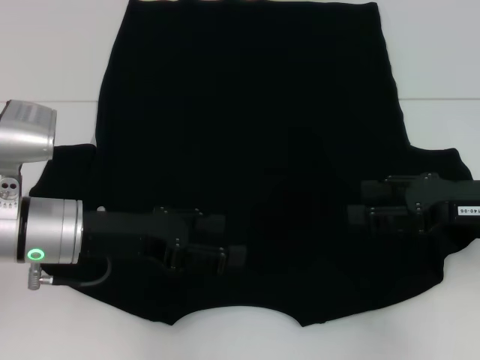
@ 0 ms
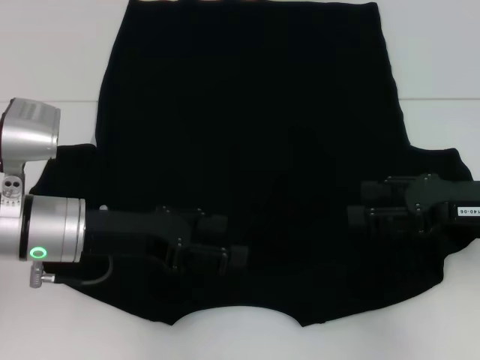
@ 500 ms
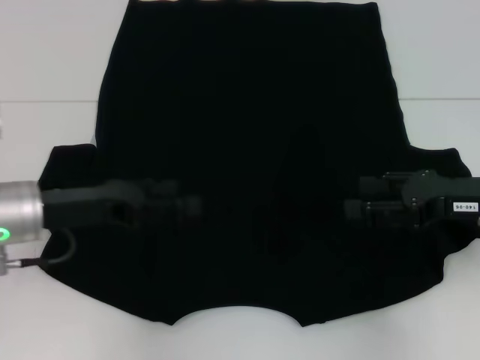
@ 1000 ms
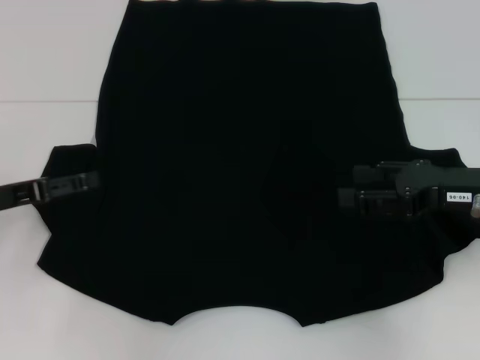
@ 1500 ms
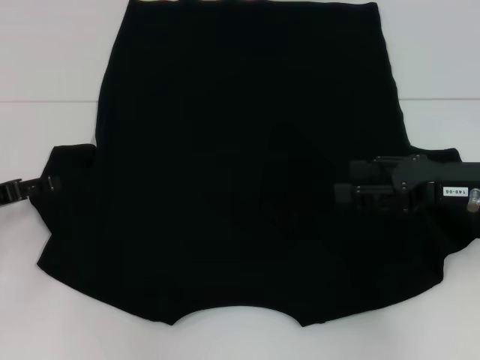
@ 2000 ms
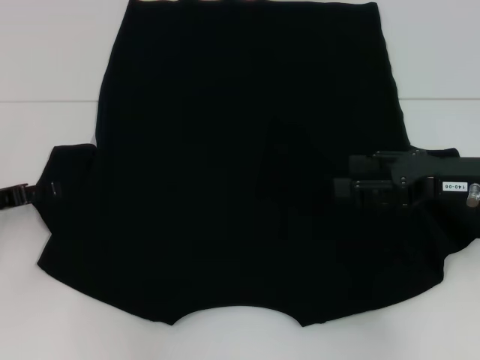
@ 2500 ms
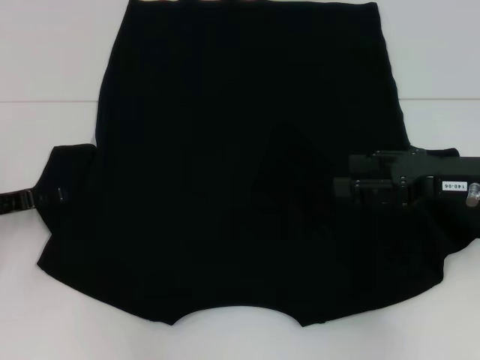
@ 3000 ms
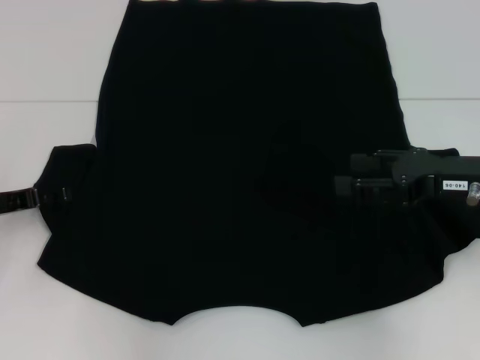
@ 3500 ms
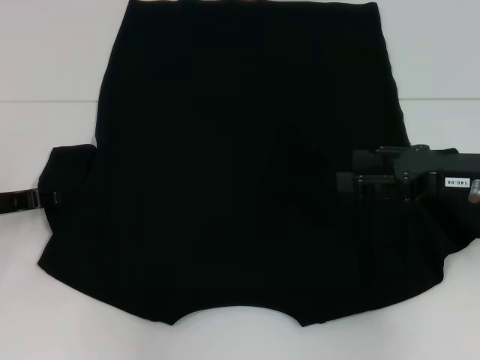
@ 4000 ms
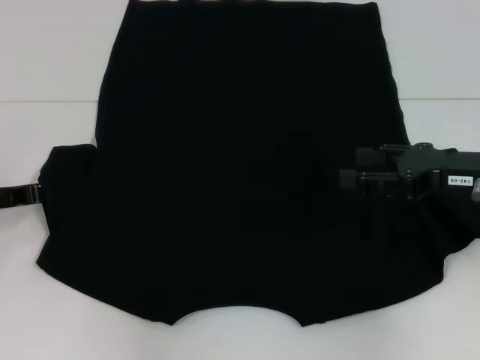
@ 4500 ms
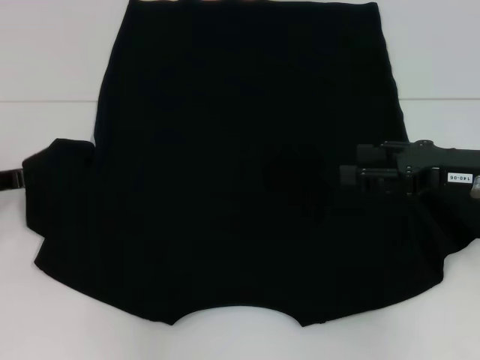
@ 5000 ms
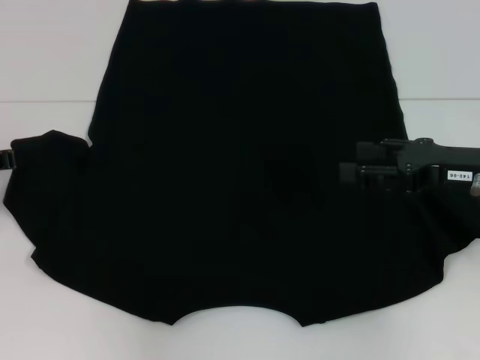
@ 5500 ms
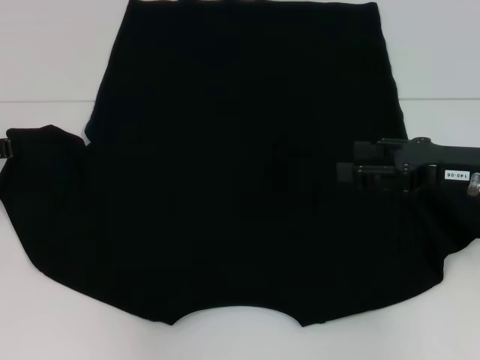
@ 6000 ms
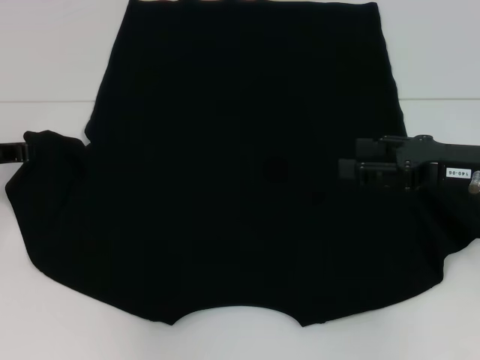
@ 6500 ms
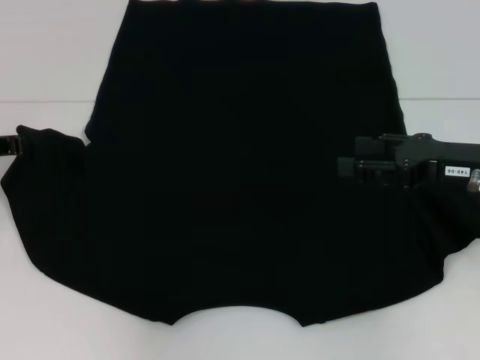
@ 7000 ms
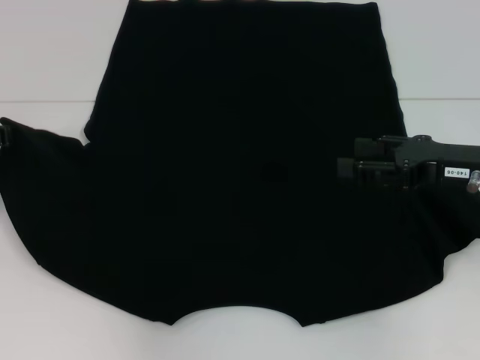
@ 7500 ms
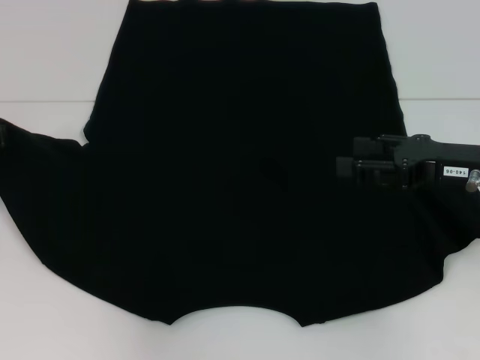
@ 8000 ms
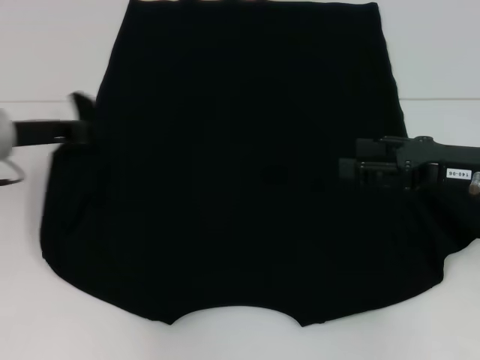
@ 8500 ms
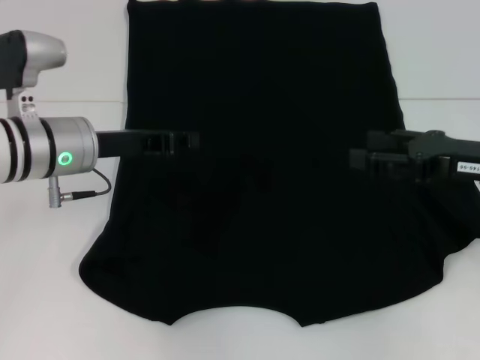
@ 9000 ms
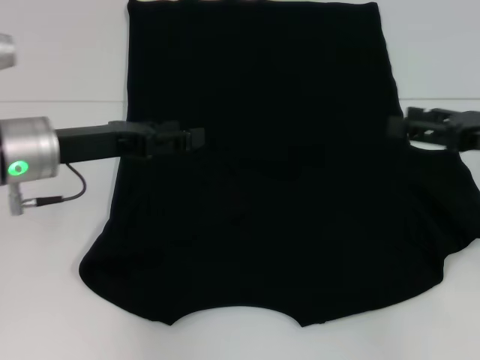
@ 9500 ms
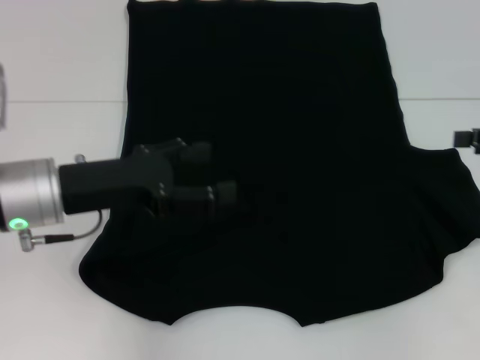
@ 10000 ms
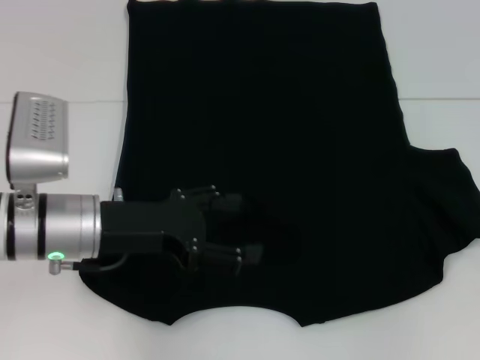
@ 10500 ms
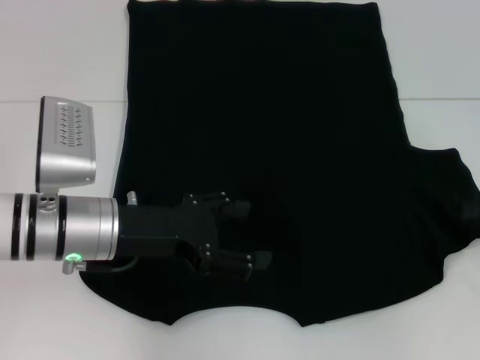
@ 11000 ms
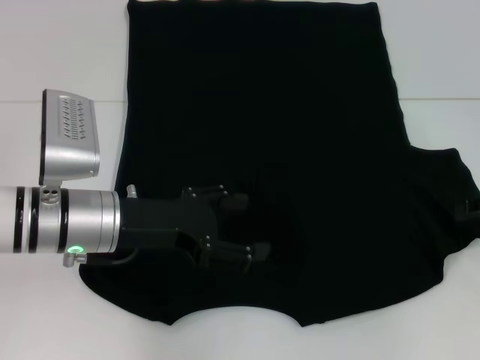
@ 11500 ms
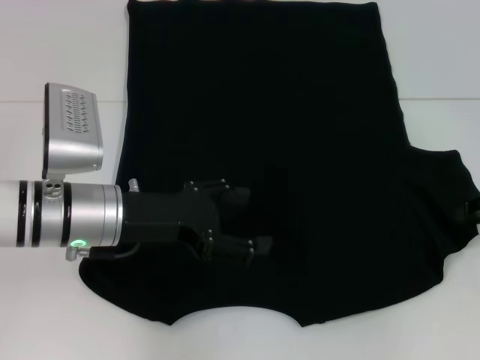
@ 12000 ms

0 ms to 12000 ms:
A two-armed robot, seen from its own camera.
Step, 0 ms to 8500 ms: Fold the bottom left sleeve with your left hand.
0 ms to 2000 ms: The left gripper moves to the left, some 15 cm.
2000 ms to 4000 ms: The grippers make only small movements.
4000 ms to 6000 ms: The left gripper ends up some 5 cm from where it was, and closes up.
6000 ms to 8000 ms: Both grippers stay about where they are.
8000 ms to 10000 ms: The left gripper goes some 15 cm to the right and backward, and opens its fingers, while the right gripper is displaced to the right by approximately 10 cm.
10000 ms to 12000 ms: The right gripper goes some 5 cm downward.

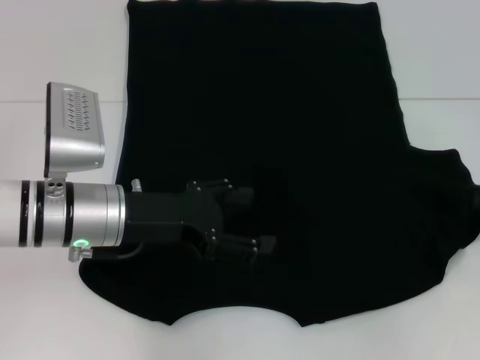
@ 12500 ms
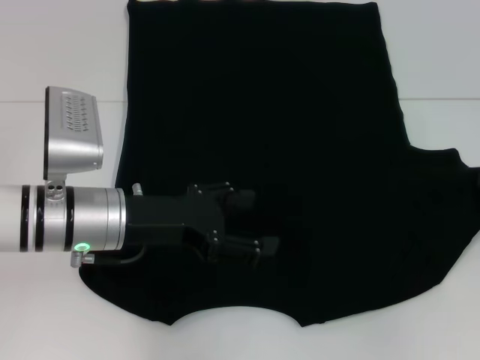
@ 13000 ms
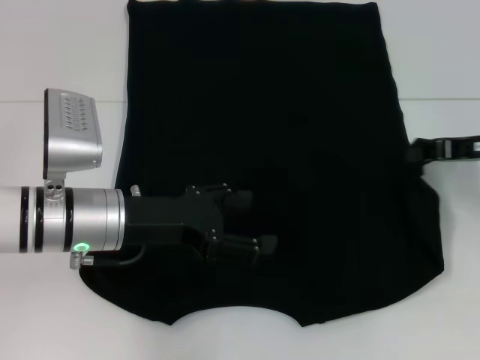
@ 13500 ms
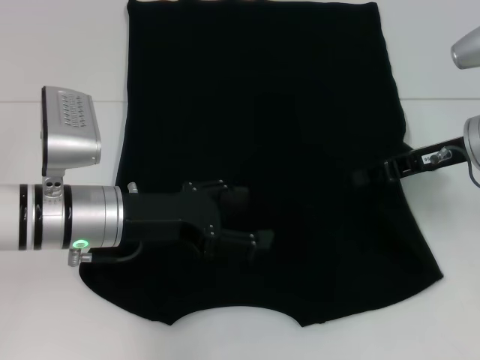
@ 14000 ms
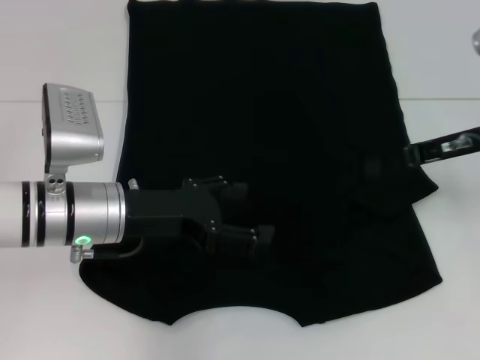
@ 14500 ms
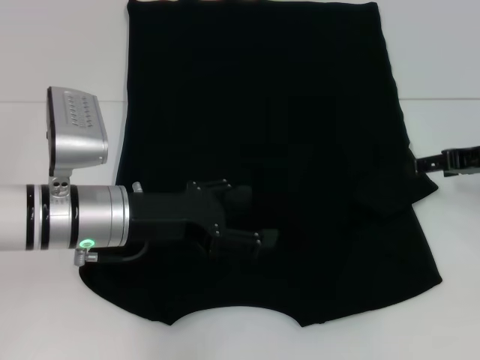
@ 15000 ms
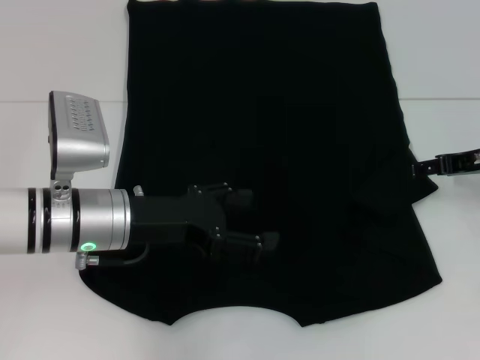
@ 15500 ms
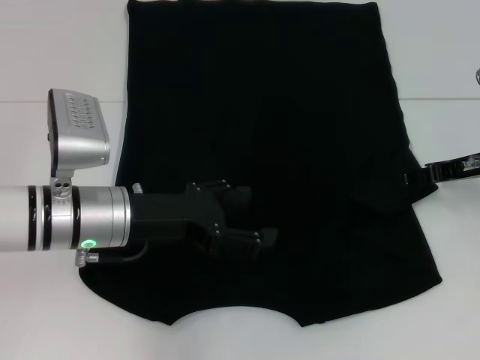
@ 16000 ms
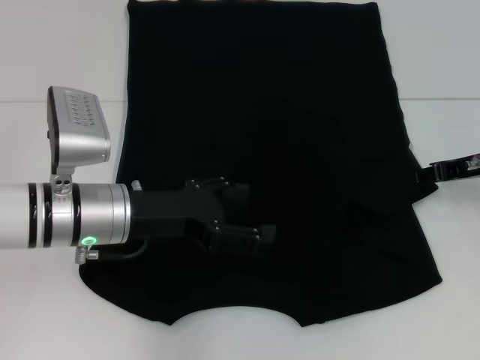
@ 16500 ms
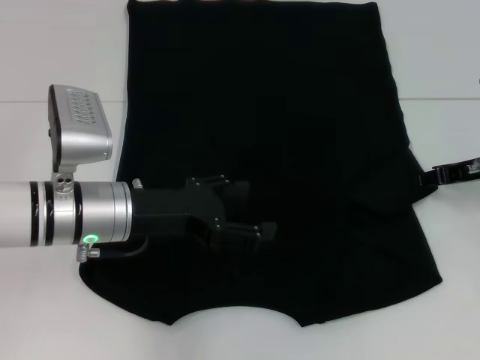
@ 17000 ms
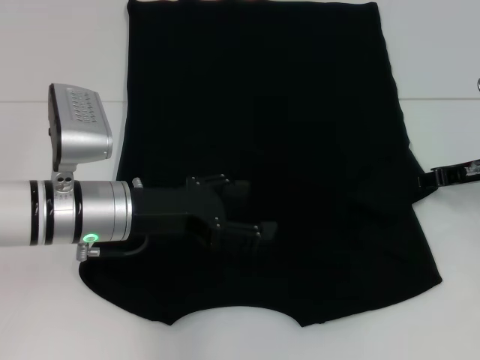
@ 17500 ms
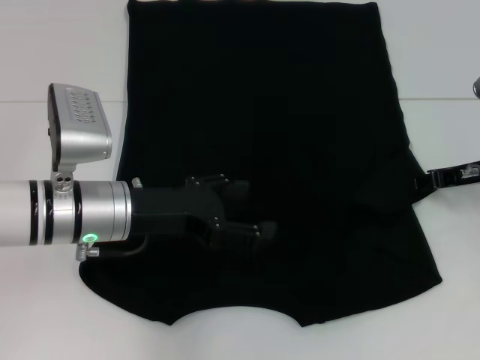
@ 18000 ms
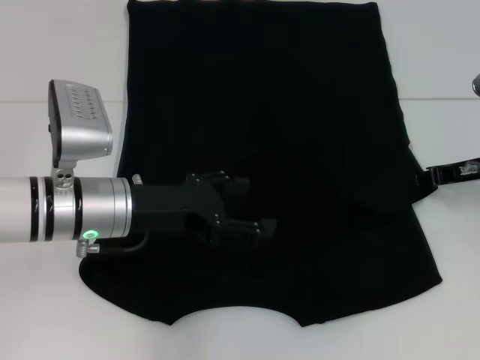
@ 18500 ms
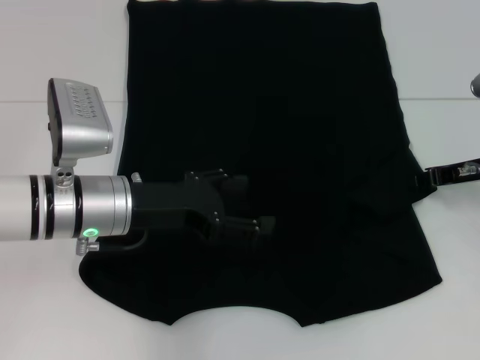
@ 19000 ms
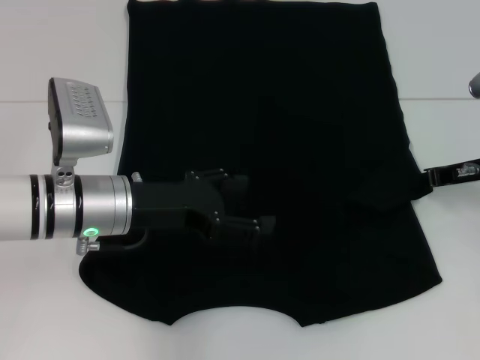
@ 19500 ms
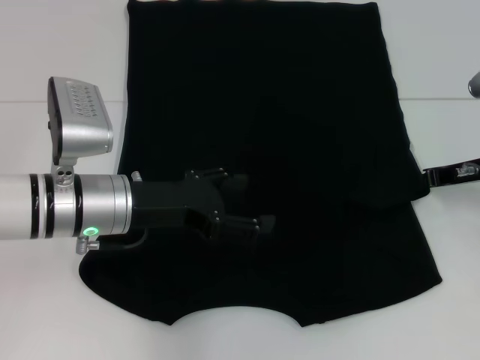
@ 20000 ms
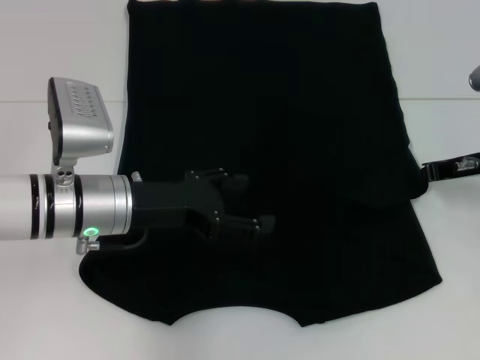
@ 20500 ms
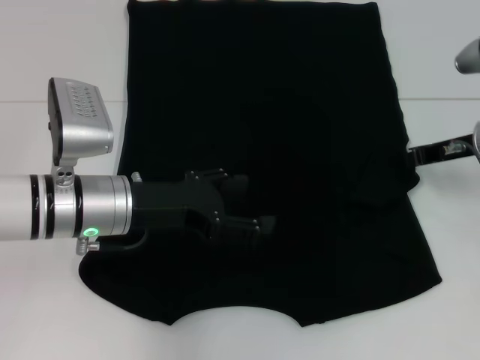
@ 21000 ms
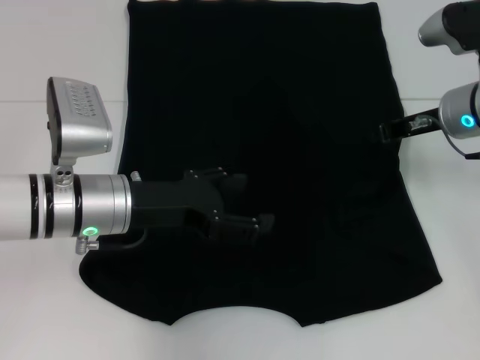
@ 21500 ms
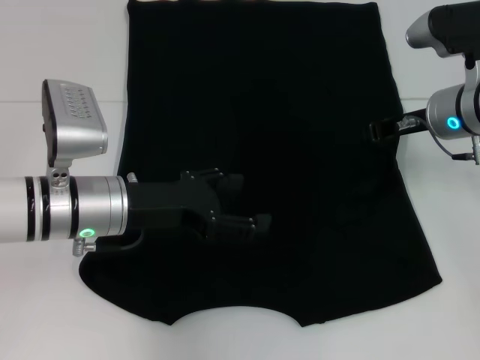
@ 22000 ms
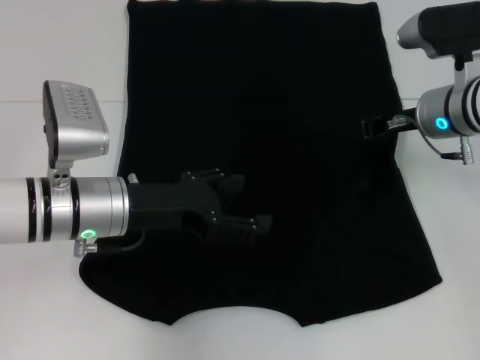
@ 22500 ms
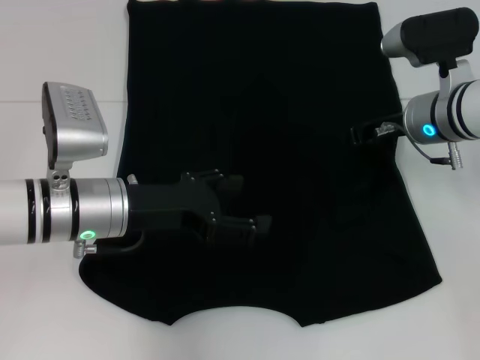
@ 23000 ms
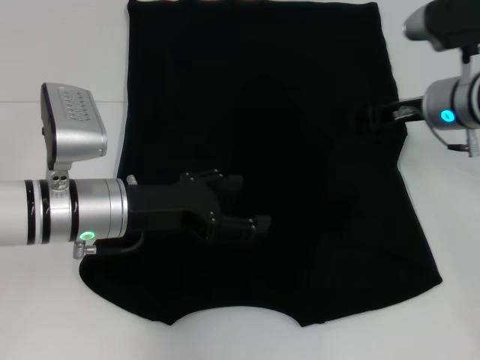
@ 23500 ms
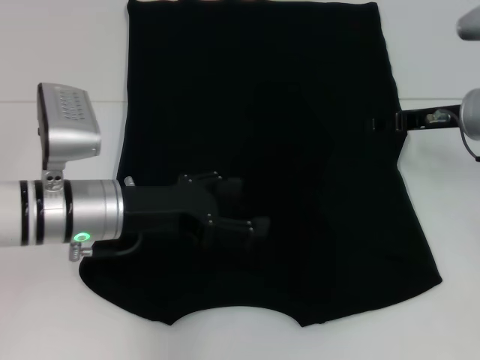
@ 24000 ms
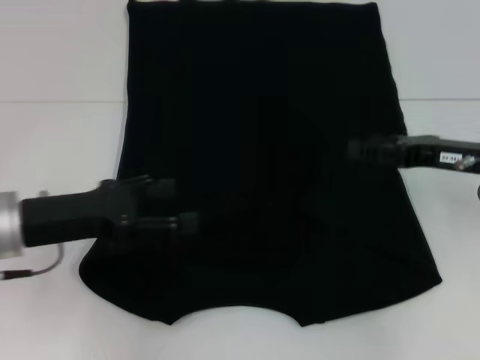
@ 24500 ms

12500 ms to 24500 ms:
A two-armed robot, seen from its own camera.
Step, 12500 ms to 23000 ms: Fold the bottom right sleeve with your right hand.
12500 ms to 14500 ms: The right gripper moves to the left and forward, roughly 10 cm, and opens up.
14500 ms to 16500 ms: The right gripper opens, then closes again.
16500 ms to 18500 ms: Both grippers stay about where they are.
18500 ms to 20500 ms: The right gripper closes up.
20500 ms to 22500 ms: The right gripper is displaced to the left by approximately 10 cm.
22500 ms to 24500 ms: The right gripper heads backward and to the right, covering some 10 cm, and opens its fingers. The left gripper moves to the left, some 5 cm.

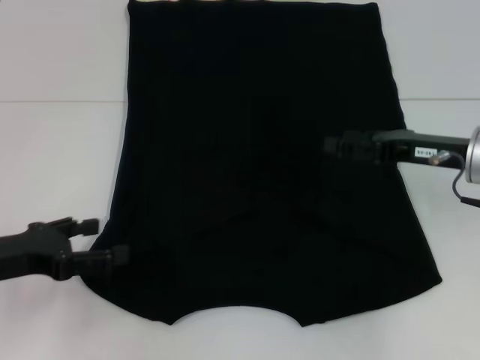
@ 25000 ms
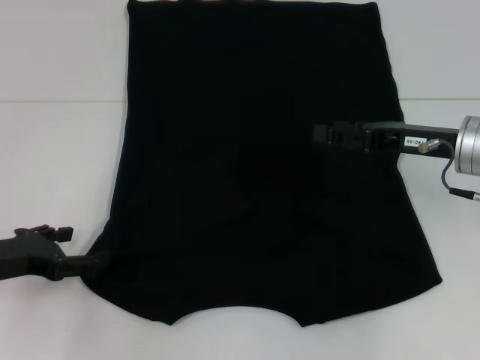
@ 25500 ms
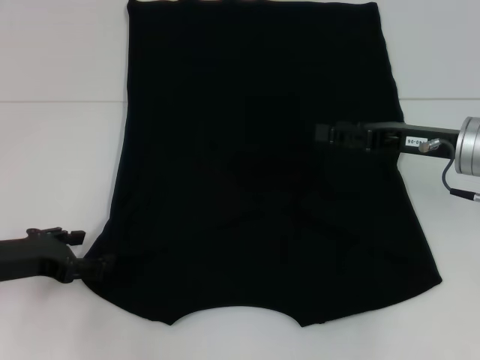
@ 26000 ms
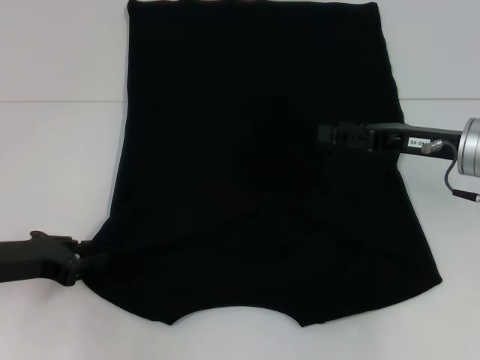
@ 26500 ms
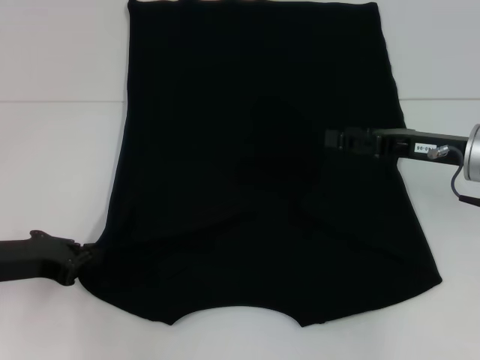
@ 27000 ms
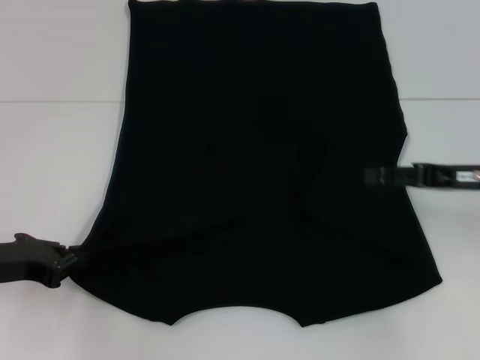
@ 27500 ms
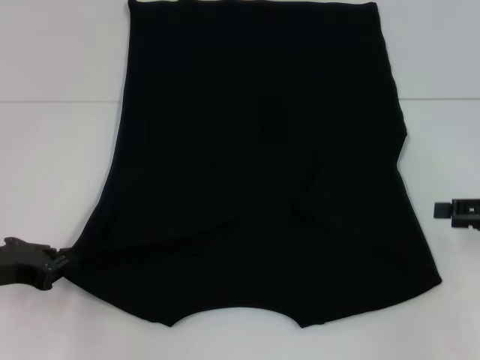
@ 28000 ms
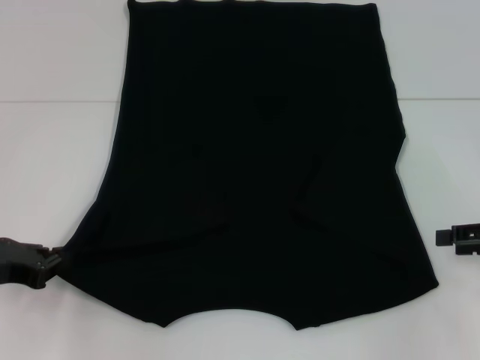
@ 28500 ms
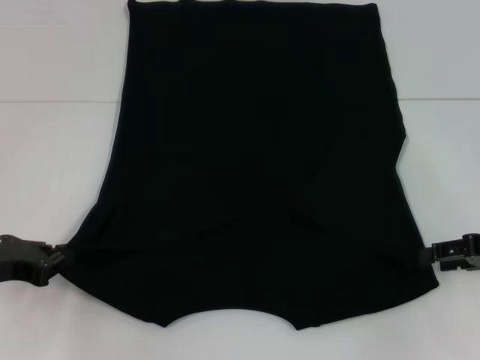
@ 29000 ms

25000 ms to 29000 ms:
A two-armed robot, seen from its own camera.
Step, 25000 ms to 27000 ms: Grab the bottom left corner with your left hand.
25000 ms to 27000 ms: The left gripper closes.
27000 ms to 29000 ms: The right gripper moves to the right and backward, some 10 cm.
